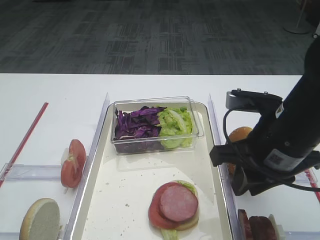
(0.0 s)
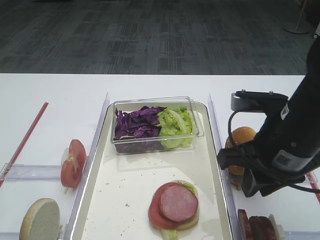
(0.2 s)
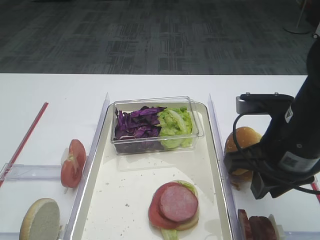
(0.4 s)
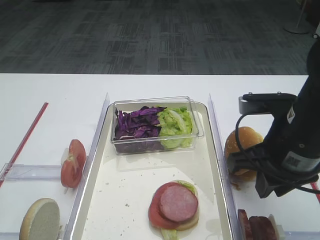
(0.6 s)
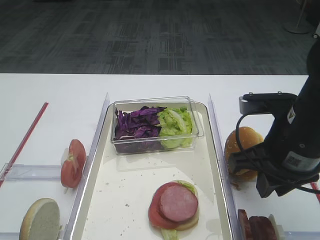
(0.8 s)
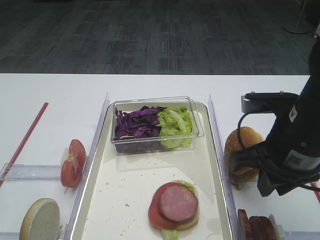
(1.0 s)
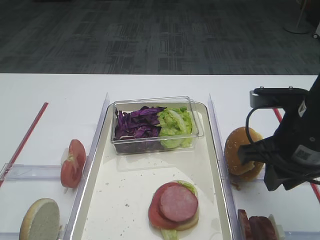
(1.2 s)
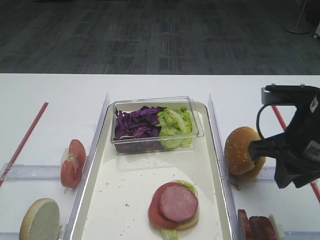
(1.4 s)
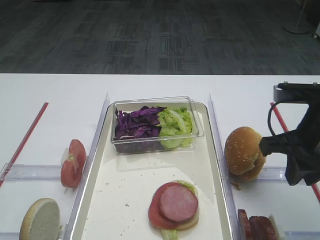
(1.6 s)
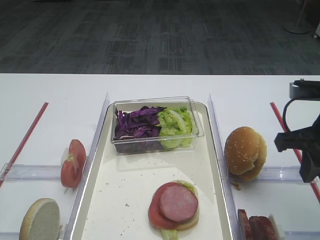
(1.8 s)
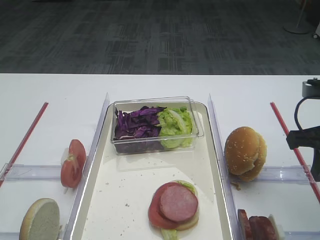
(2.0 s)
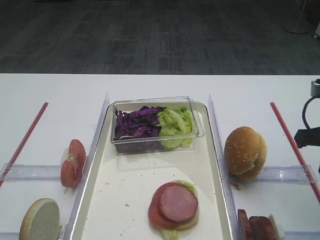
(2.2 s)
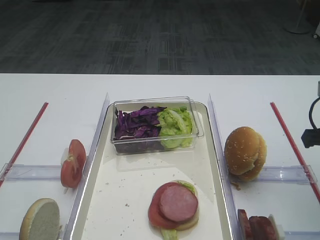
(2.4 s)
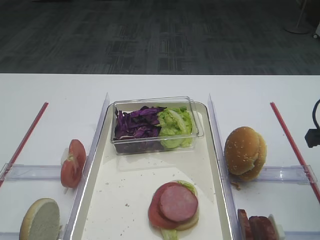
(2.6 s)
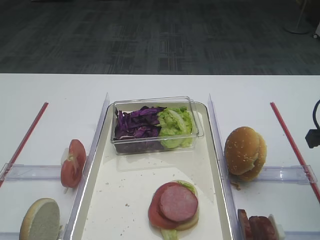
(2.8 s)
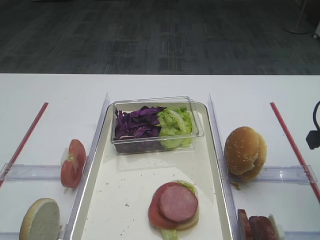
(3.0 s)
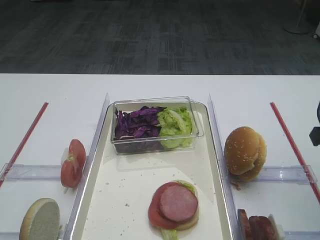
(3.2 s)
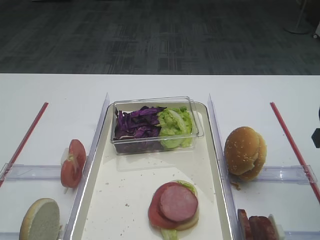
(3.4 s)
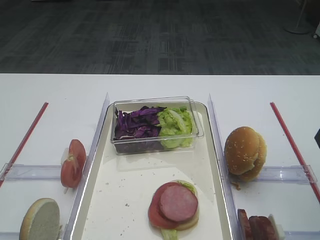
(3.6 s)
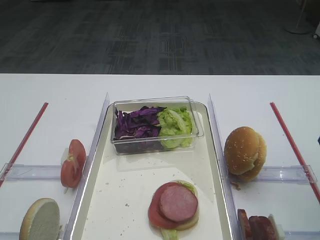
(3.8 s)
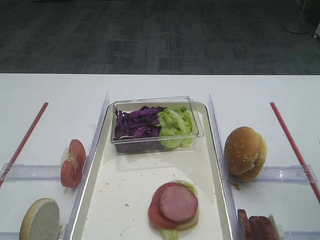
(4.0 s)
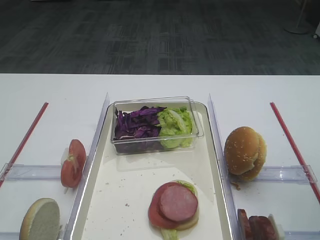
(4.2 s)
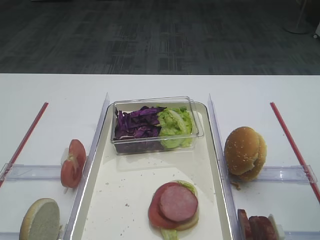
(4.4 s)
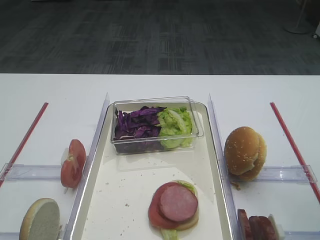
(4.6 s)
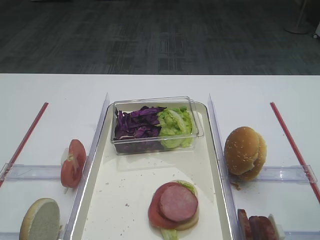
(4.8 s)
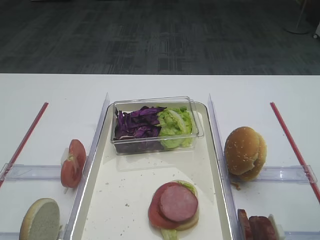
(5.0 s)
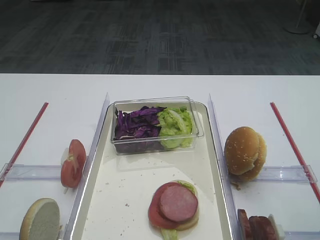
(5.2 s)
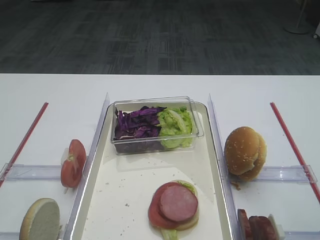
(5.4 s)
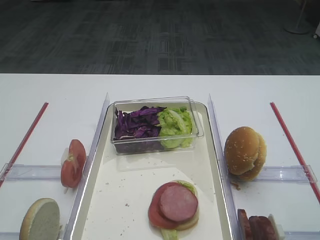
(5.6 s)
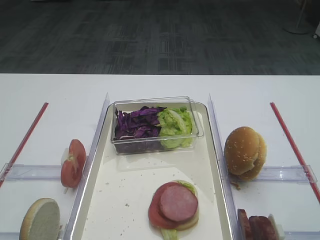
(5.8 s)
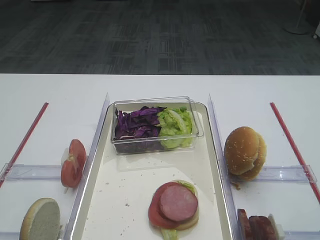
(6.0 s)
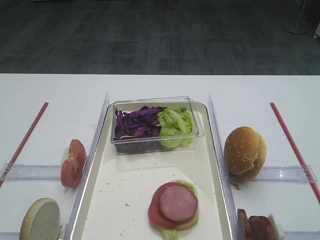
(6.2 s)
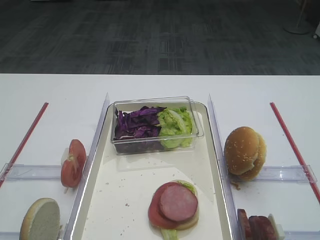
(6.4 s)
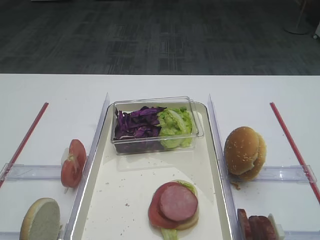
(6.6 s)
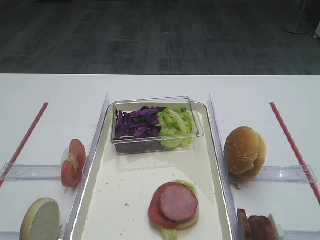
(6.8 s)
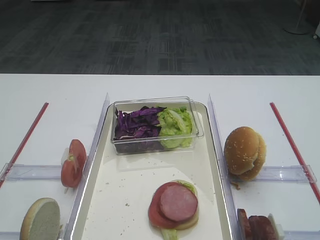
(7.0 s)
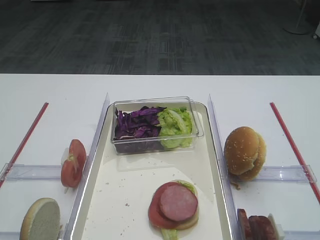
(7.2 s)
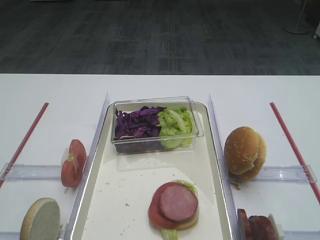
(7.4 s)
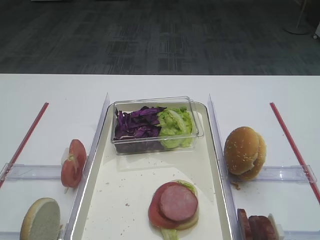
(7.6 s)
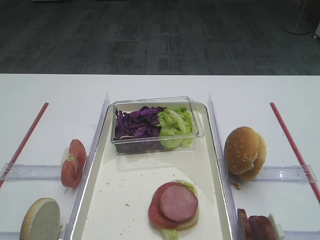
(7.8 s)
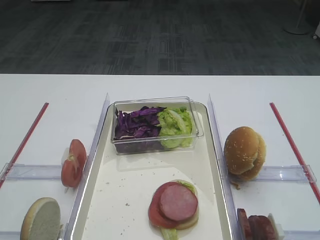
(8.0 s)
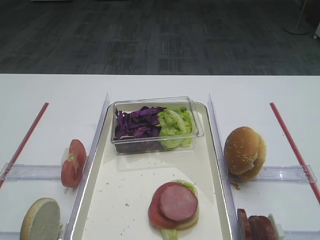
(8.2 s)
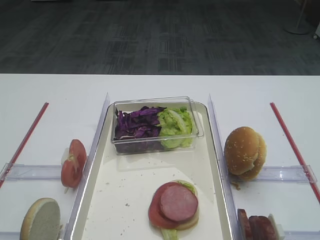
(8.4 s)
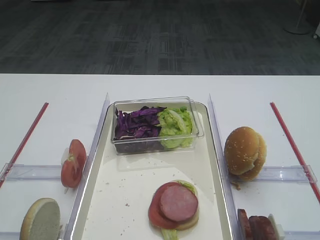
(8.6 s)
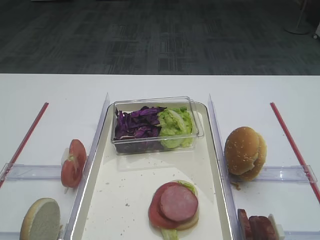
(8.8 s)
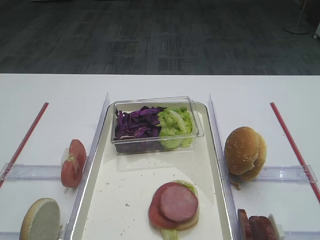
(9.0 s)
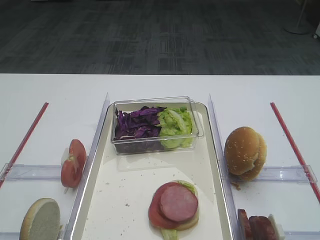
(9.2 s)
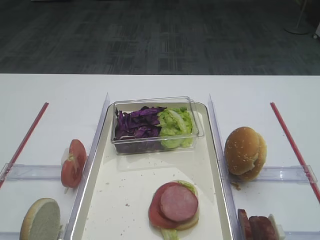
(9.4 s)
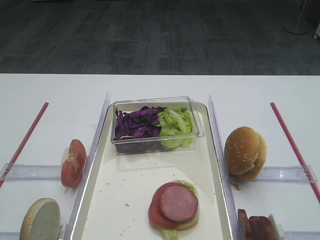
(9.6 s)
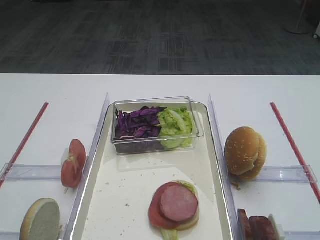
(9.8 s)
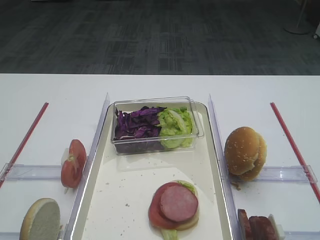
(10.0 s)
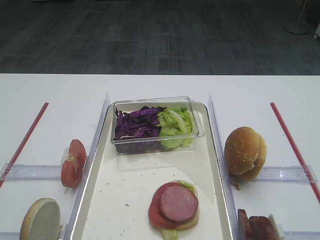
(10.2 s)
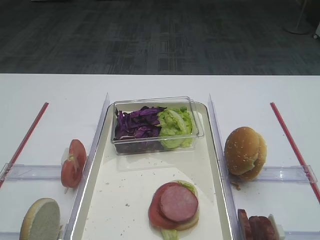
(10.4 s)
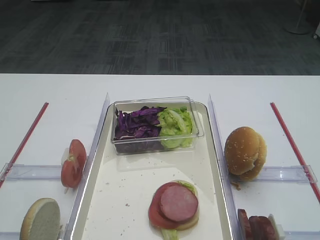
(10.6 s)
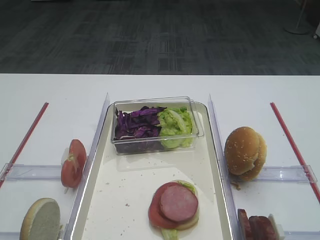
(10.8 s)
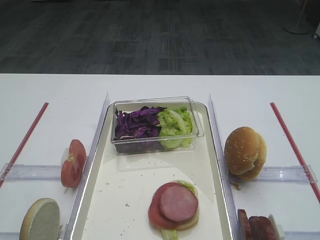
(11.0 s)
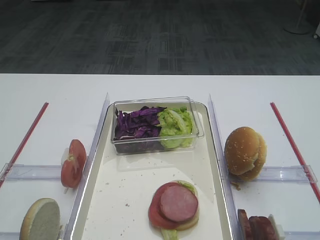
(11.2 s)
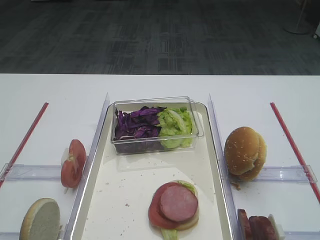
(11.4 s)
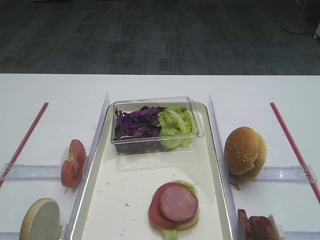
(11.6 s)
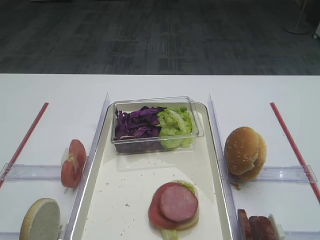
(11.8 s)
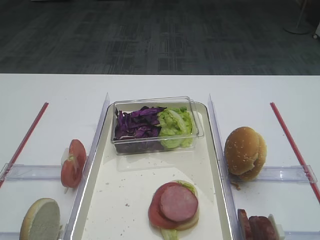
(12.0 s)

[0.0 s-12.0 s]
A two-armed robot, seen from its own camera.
0.0 to 1.6 s: The right gripper shifts roughly 5 cm to the right.
1.6 to 3.0 s: The right gripper travels to the right by some 5 cm.
10.4 to 12.0 s: Both grippers stay about where they are.

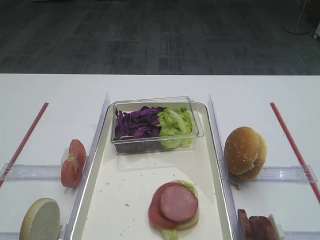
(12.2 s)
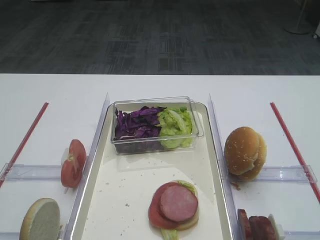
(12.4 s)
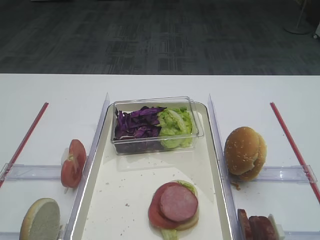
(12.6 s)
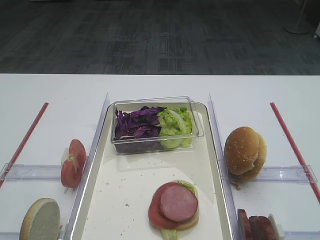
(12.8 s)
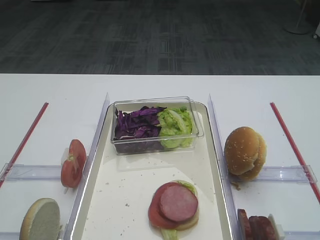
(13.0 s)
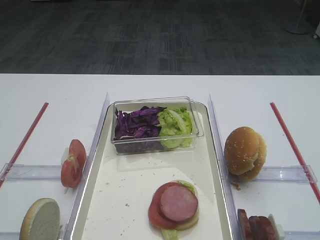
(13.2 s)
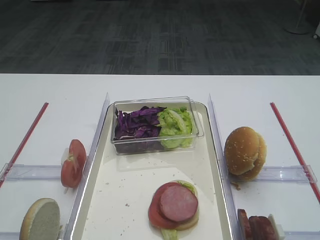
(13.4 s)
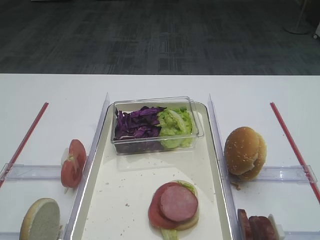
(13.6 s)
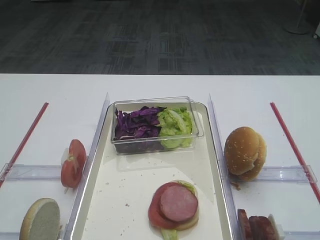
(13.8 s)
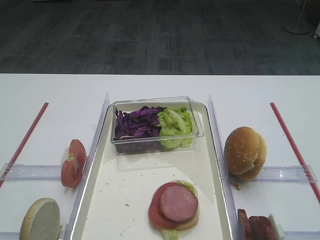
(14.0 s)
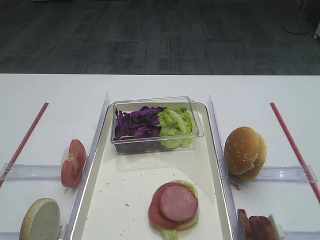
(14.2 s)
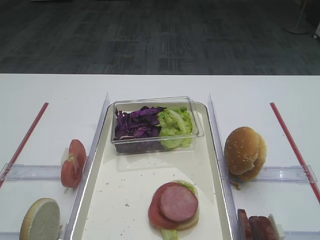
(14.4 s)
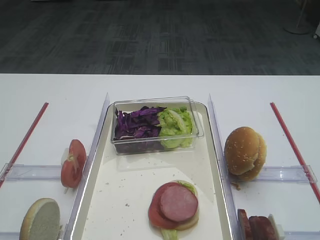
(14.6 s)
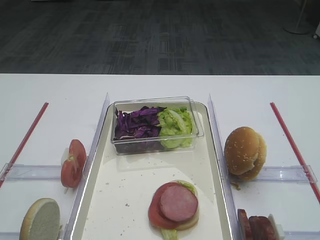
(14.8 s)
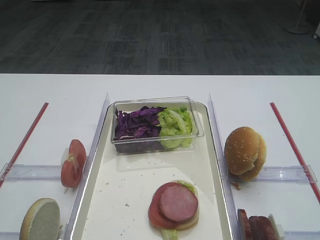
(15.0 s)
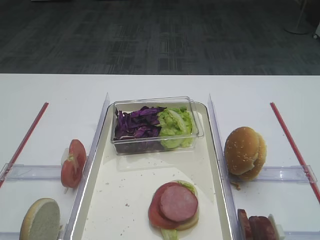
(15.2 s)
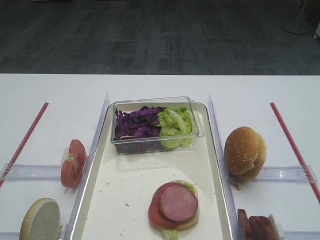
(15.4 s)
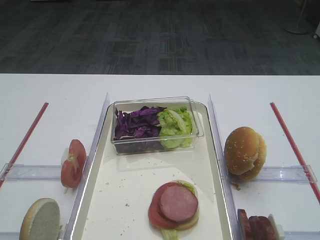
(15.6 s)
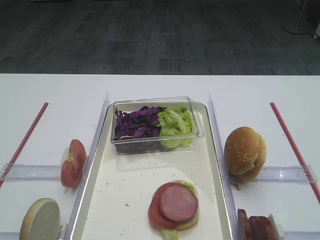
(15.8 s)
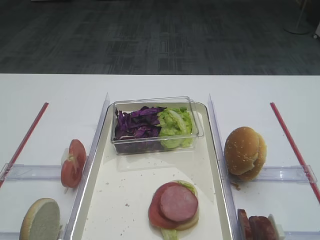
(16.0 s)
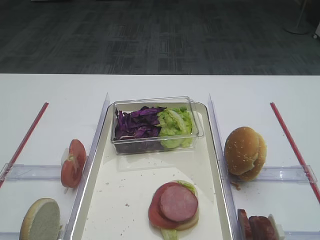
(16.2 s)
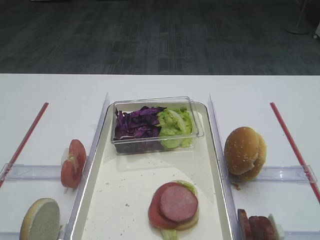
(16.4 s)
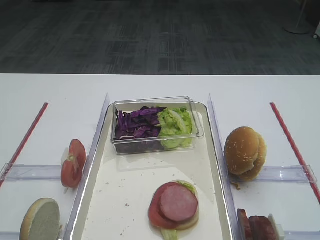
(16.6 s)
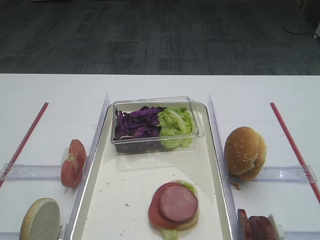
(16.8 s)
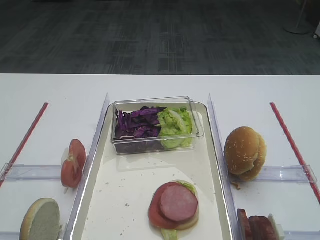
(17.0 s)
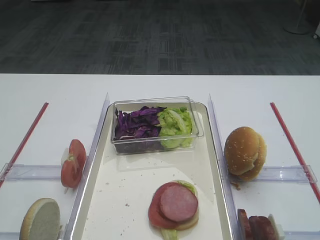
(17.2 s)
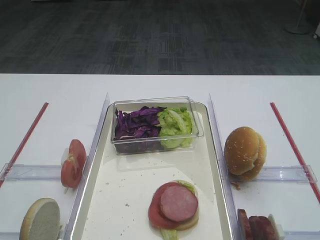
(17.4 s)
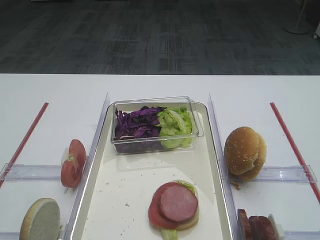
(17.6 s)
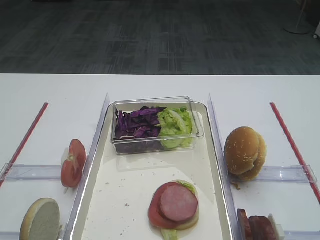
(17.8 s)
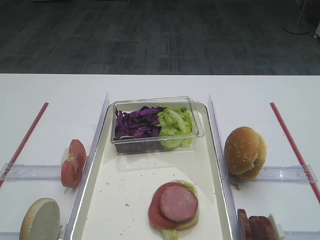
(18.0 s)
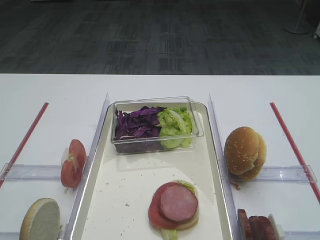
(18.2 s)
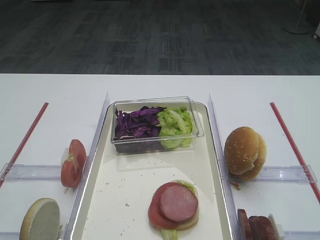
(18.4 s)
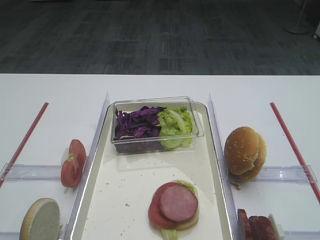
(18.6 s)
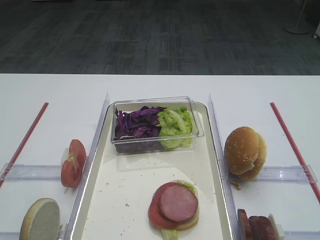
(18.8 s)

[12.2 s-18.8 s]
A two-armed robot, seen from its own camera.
12.2 to 18.8 s: The two grippers keep their place.

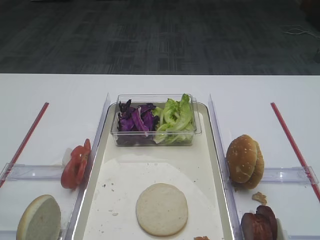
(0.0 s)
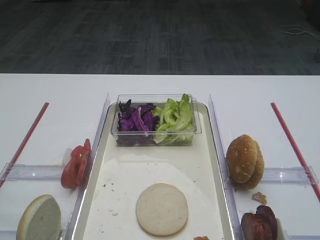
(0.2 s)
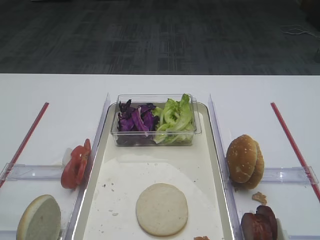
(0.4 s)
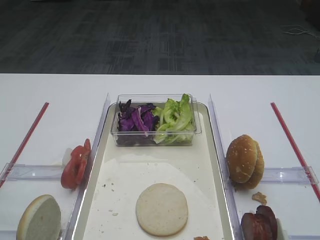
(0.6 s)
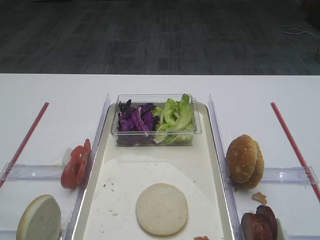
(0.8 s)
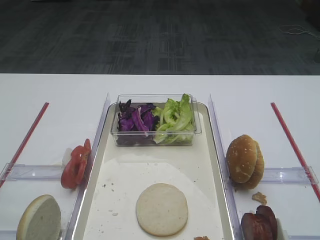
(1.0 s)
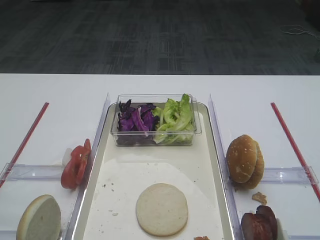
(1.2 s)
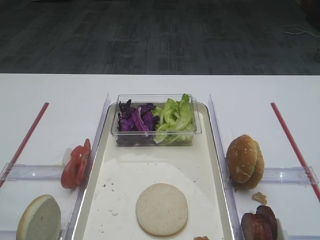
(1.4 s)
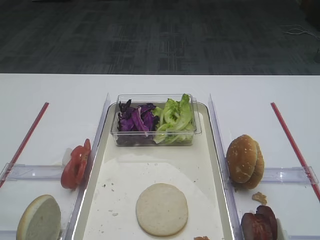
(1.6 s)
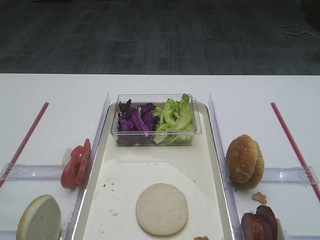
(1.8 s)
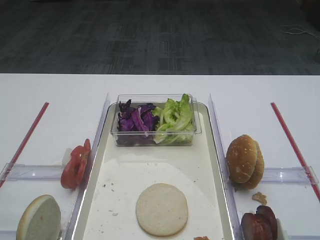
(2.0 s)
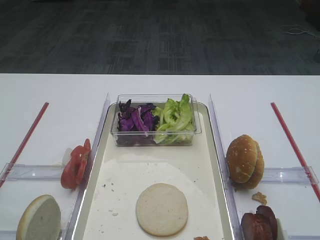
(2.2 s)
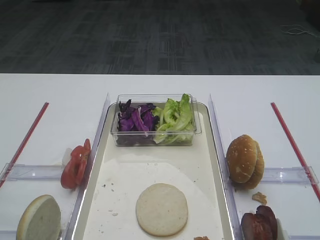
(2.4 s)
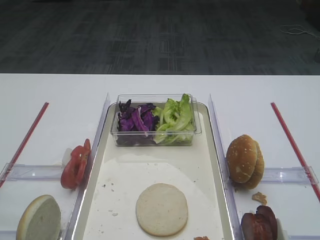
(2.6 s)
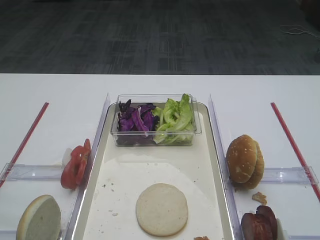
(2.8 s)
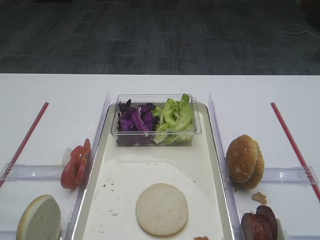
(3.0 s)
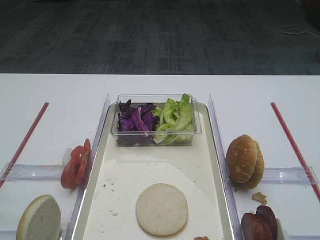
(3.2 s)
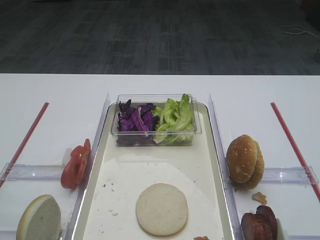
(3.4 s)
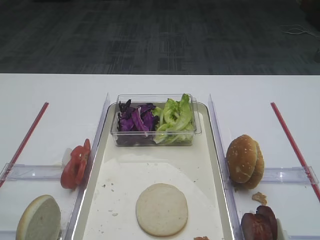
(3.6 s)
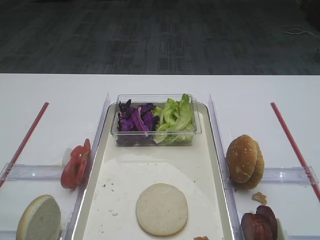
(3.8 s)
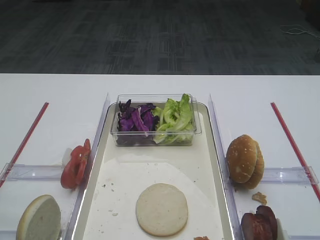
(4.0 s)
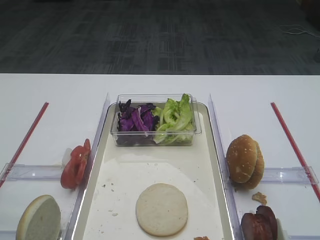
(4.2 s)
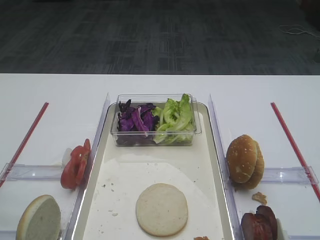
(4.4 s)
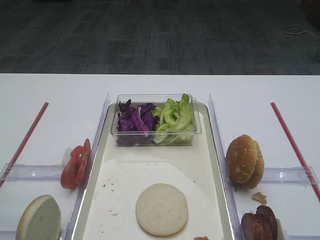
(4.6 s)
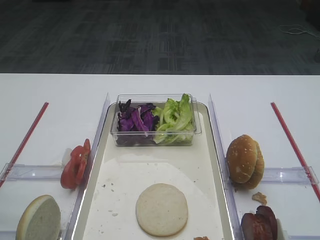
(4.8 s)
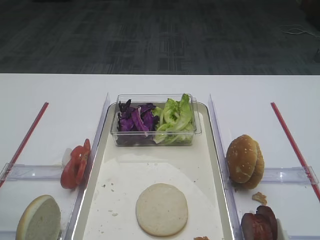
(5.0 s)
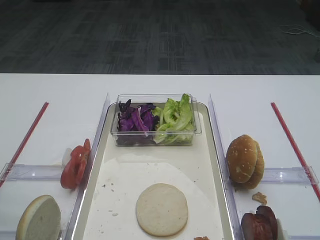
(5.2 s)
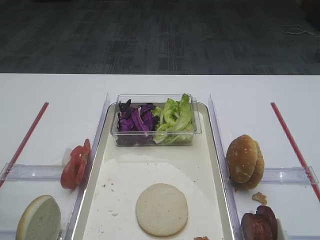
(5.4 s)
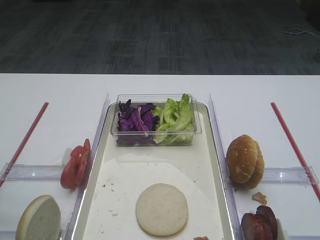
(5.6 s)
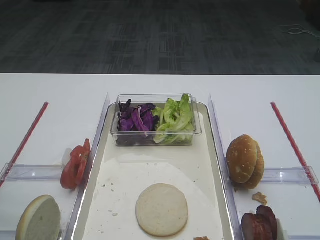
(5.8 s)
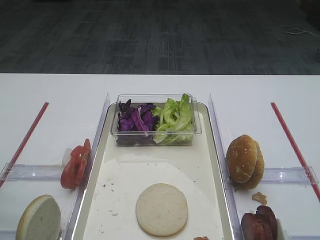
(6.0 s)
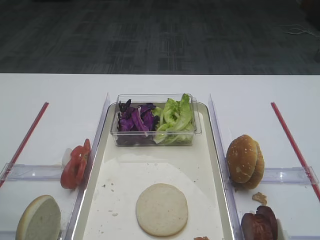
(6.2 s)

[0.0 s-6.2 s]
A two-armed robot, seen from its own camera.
1.6 to 3.2 s: Neither gripper changes place.
